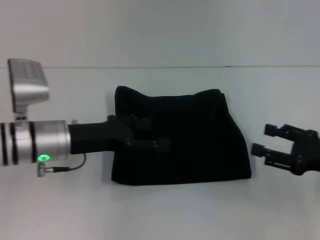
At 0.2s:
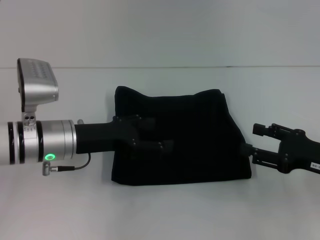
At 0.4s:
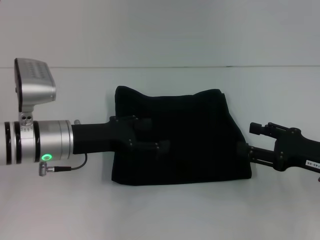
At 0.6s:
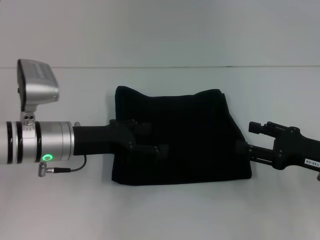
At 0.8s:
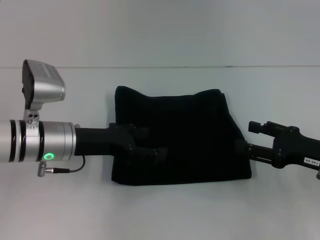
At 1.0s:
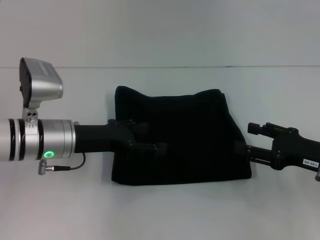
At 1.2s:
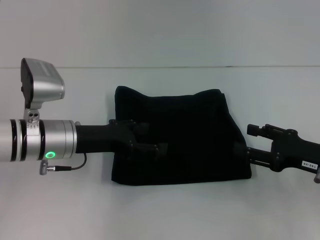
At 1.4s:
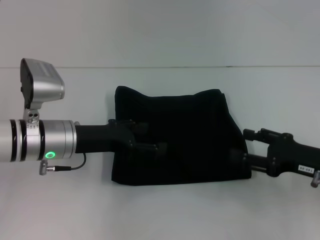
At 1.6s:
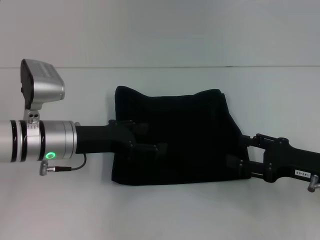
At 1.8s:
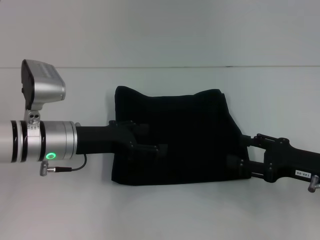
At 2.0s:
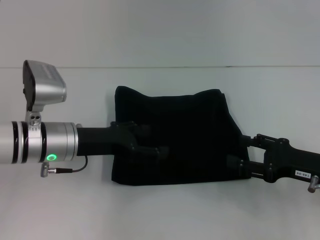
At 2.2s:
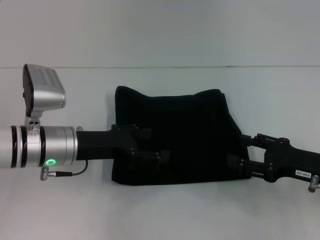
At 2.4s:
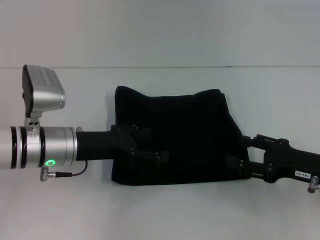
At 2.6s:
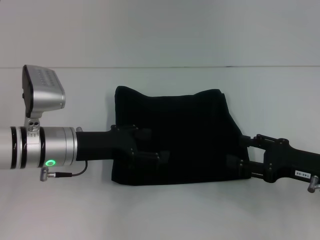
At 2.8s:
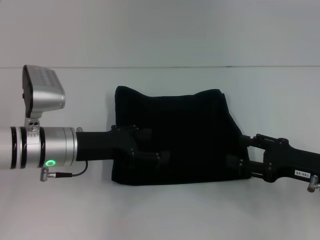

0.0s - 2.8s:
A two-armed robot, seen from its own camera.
0.0s - 1.4s: The grippers make only small movements.
1.4s - 2.8s: Both grippers stay put.

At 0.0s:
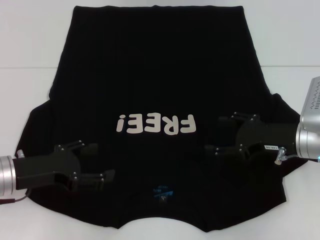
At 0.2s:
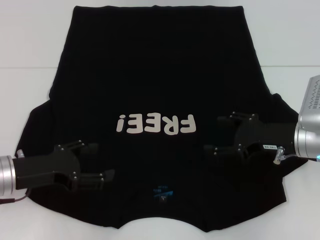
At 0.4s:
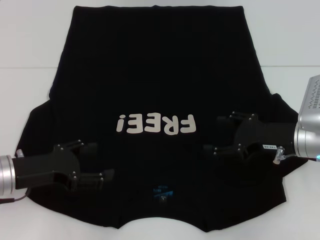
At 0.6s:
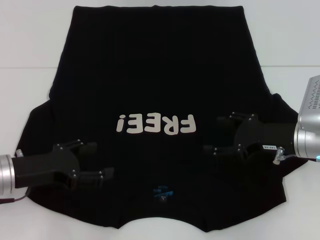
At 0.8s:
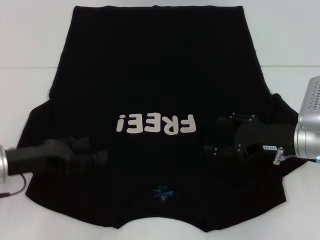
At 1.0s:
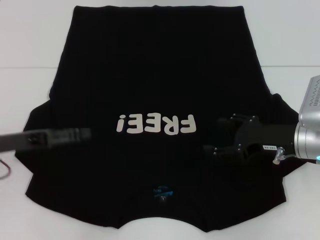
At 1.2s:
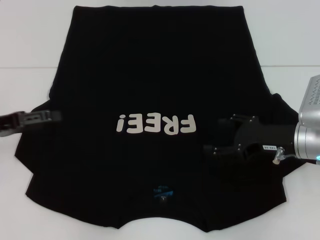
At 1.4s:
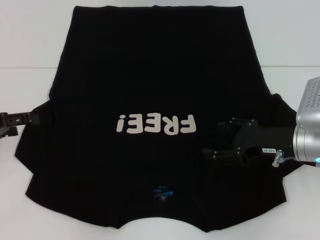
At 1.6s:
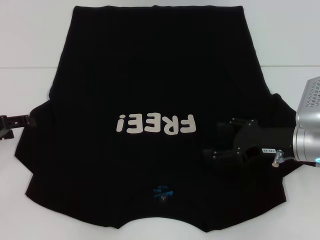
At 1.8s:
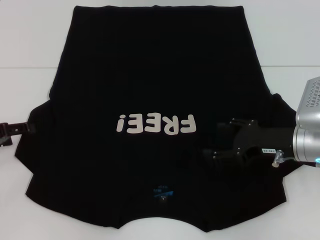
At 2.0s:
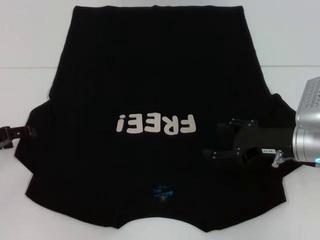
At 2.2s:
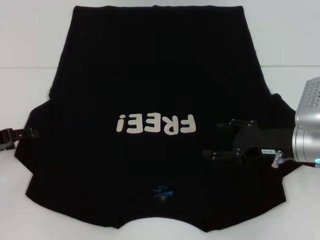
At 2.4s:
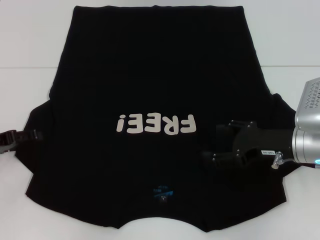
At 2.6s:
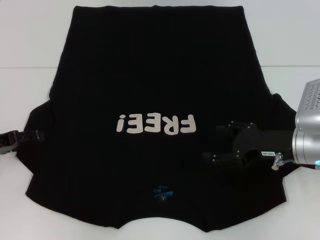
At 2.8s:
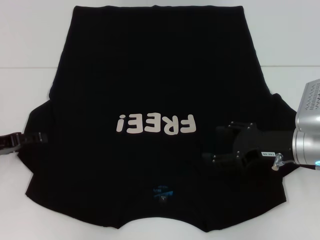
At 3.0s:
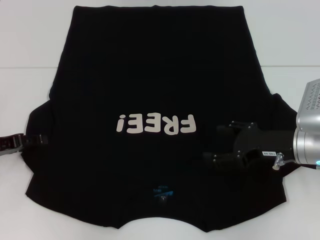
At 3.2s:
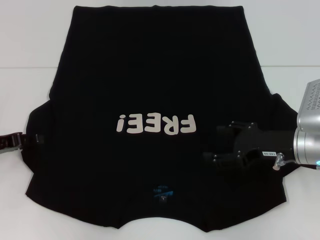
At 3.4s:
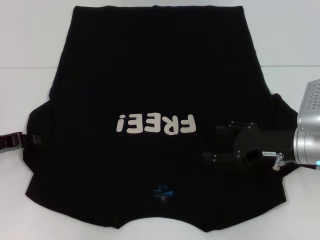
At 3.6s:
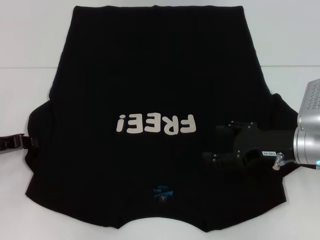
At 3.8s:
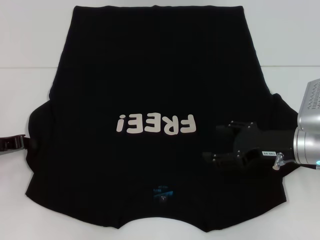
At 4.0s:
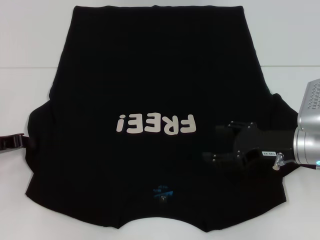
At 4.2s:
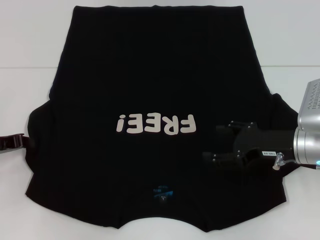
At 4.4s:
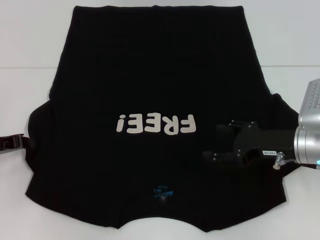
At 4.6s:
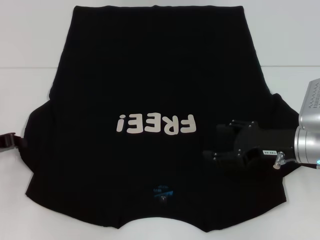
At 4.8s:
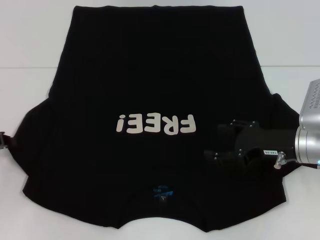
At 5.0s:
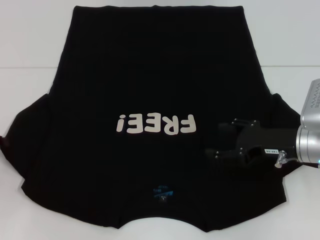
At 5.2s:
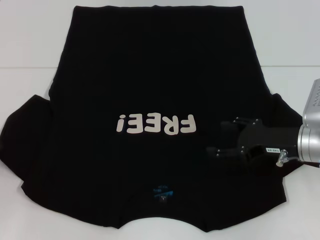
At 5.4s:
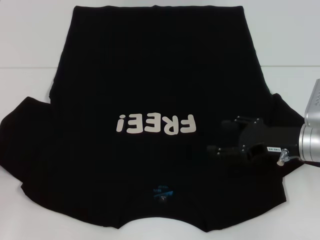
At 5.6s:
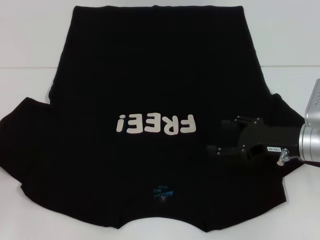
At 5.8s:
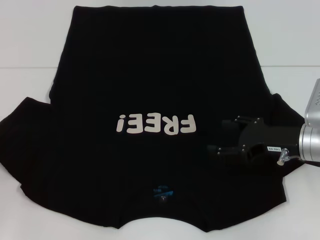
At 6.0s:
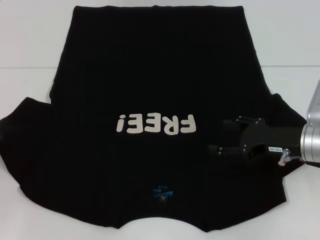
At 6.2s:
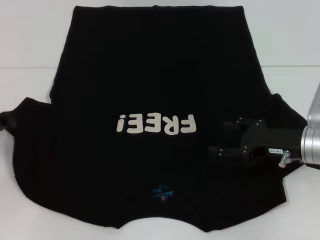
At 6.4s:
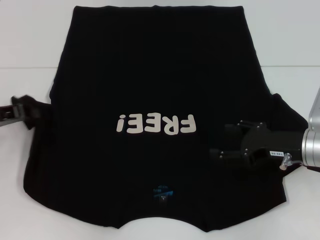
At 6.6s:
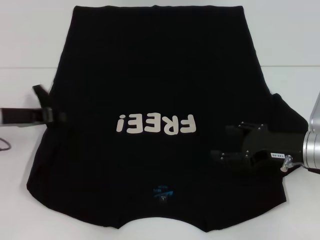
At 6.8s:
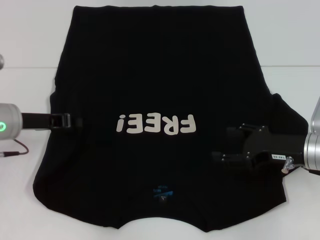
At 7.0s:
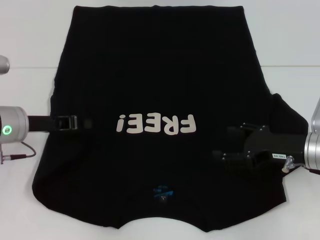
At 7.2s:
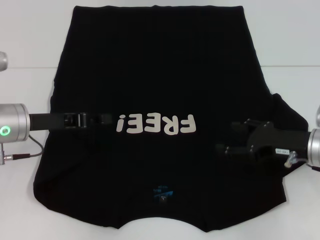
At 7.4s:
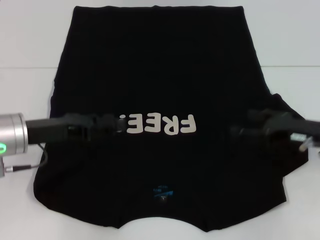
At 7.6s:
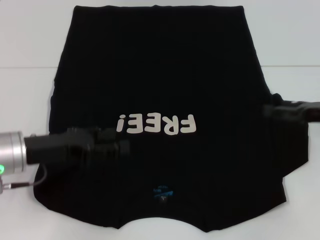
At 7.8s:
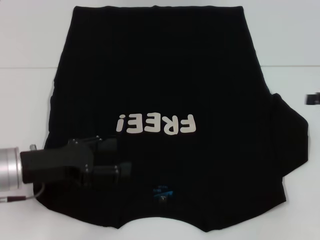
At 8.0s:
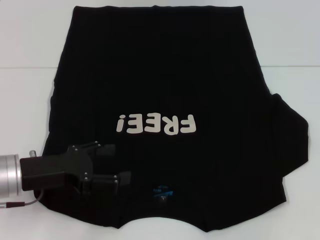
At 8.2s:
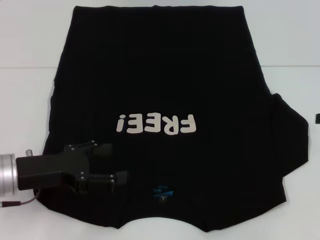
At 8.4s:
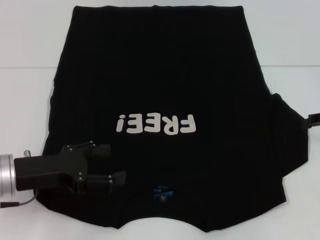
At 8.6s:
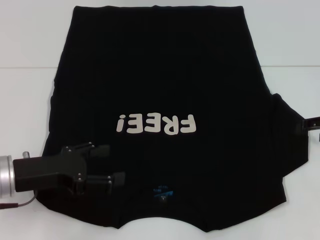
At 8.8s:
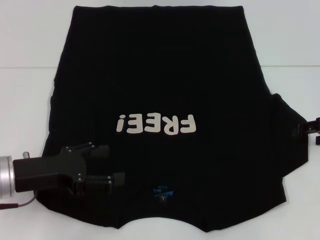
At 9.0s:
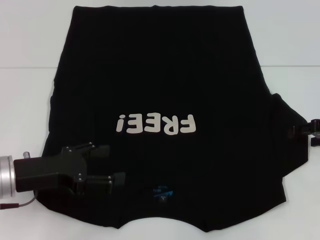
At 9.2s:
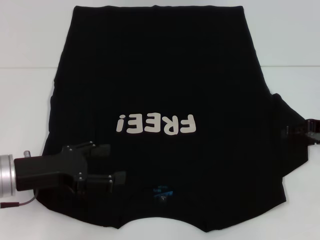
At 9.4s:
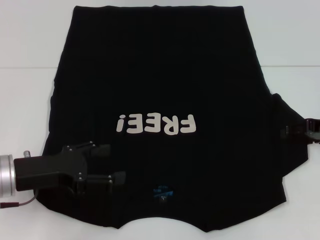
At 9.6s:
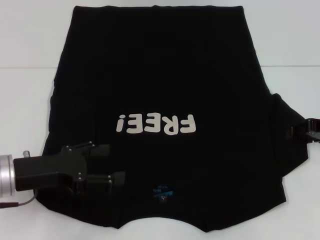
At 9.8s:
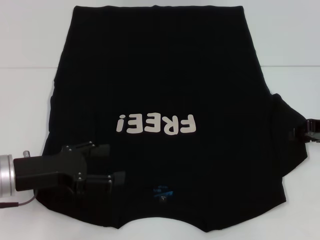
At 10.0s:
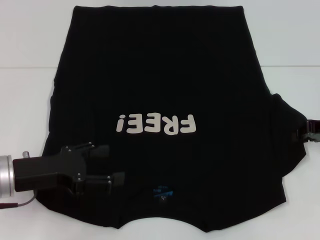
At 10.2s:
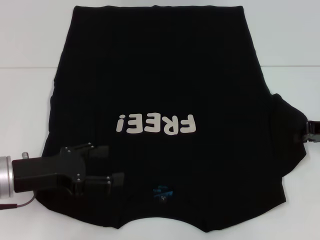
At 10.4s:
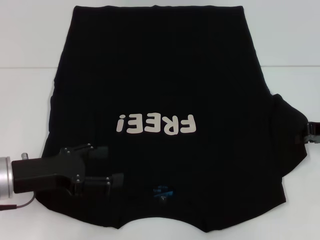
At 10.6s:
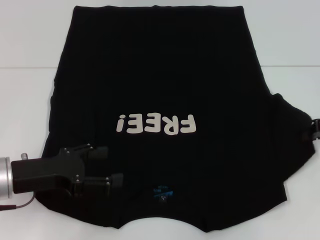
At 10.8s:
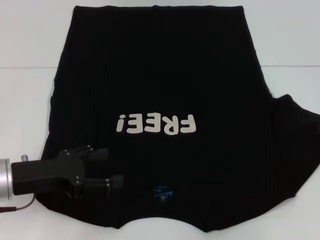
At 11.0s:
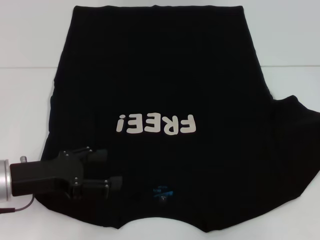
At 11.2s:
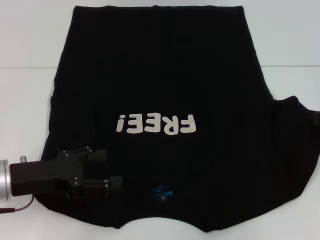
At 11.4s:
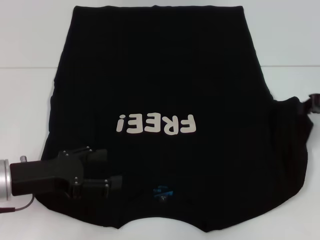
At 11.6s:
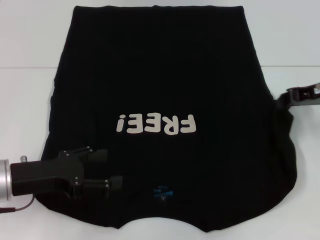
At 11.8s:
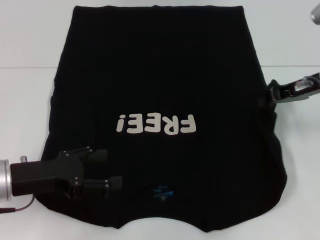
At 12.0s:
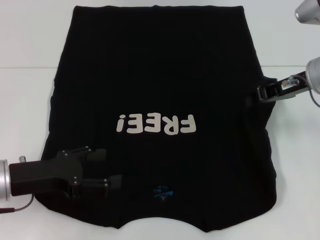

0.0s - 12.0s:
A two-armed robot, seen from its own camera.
Step, 0.0s - 7.2s: Fold the bottom left sleeve with your left hand.
0.0s - 1.6s: The left gripper moves to the left, about 10 cm.
1.6s - 3.0s: There are only small adjustments of the grippers.
4.4s - 6.0s: The left gripper changes place by about 5 cm.
6.0s - 7.6s: The right gripper moves to the right, approximately 10 cm. The left gripper travels to the right by some 15 cm, and opens.
7.6s - 9.0s: The left gripper opens its fingers.
9.0s - 10.4s: The right gripper closes.
10.4s - 12.0s: The right gripper heads to the left and upward, covering some 10 cm.

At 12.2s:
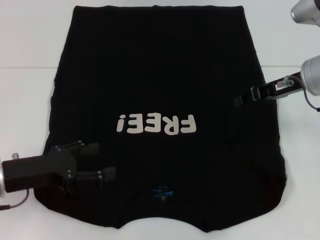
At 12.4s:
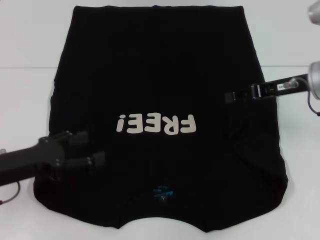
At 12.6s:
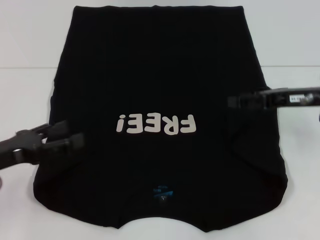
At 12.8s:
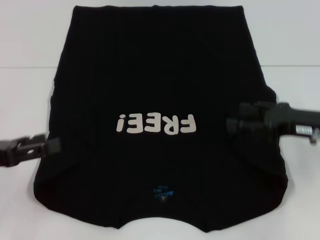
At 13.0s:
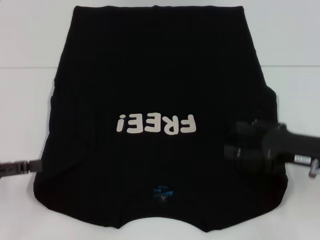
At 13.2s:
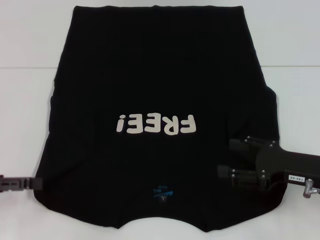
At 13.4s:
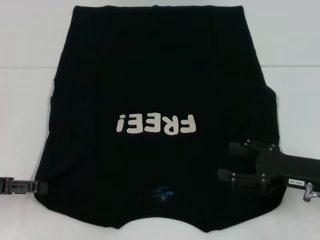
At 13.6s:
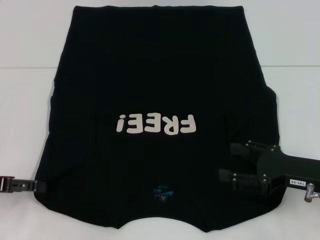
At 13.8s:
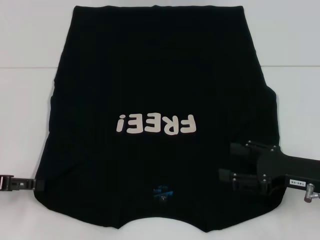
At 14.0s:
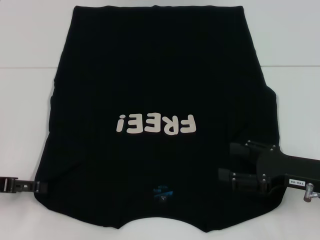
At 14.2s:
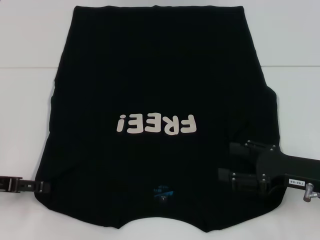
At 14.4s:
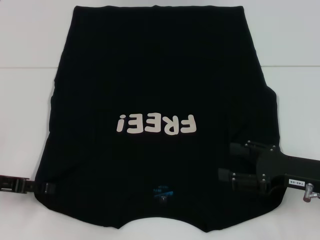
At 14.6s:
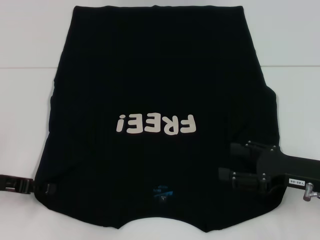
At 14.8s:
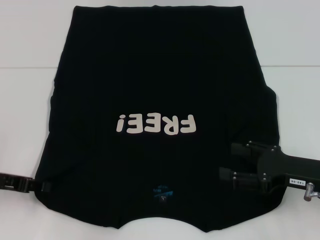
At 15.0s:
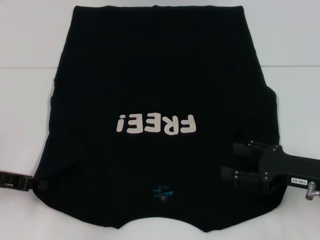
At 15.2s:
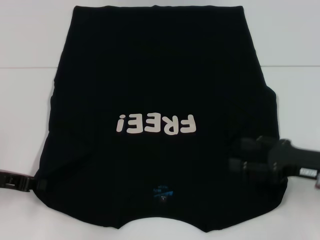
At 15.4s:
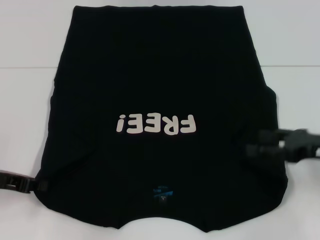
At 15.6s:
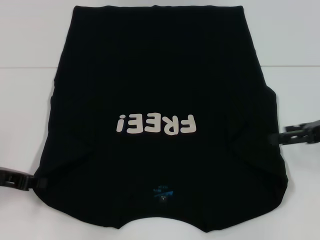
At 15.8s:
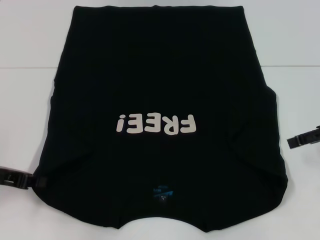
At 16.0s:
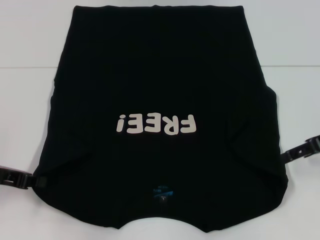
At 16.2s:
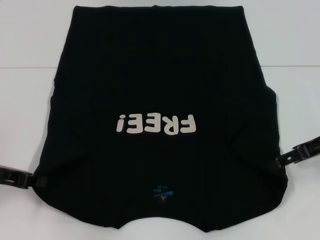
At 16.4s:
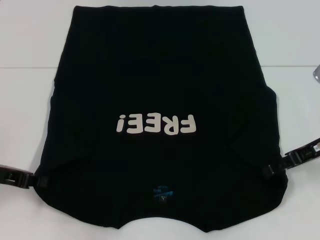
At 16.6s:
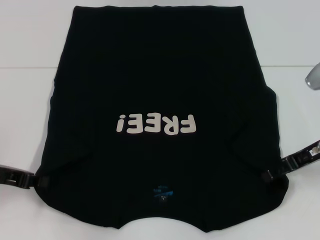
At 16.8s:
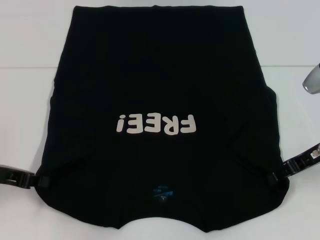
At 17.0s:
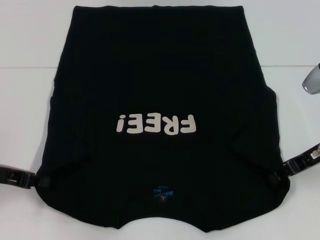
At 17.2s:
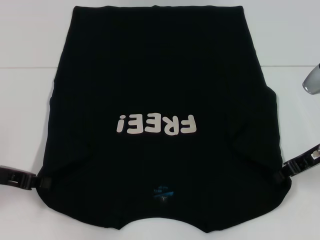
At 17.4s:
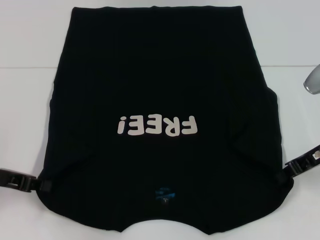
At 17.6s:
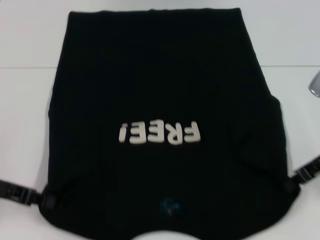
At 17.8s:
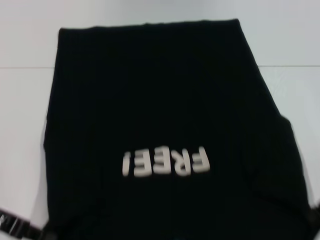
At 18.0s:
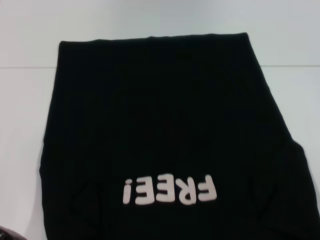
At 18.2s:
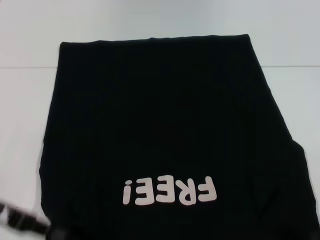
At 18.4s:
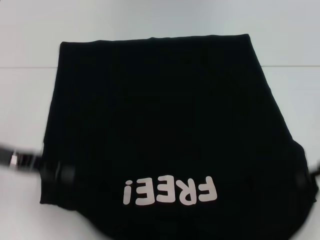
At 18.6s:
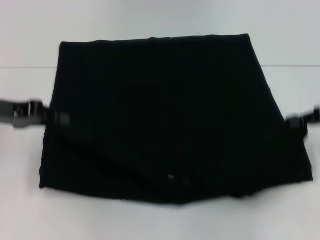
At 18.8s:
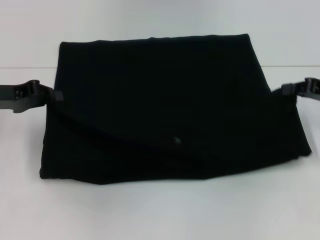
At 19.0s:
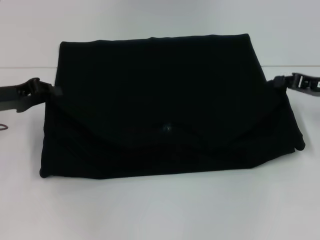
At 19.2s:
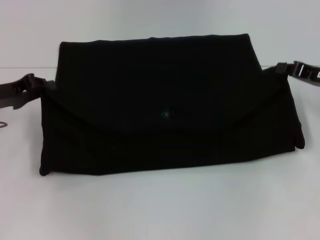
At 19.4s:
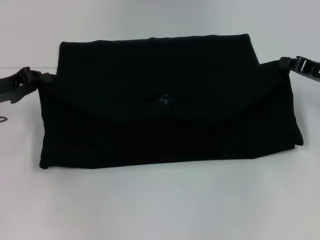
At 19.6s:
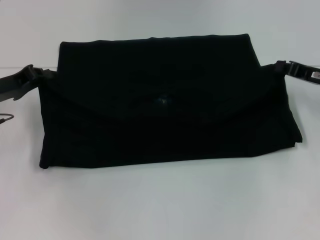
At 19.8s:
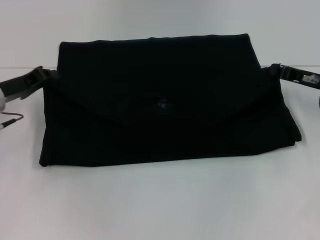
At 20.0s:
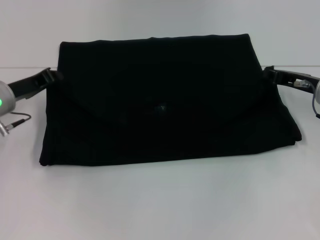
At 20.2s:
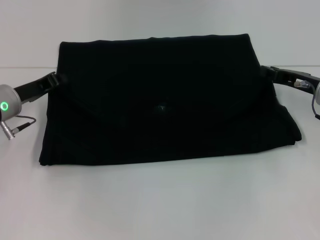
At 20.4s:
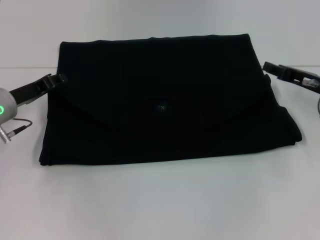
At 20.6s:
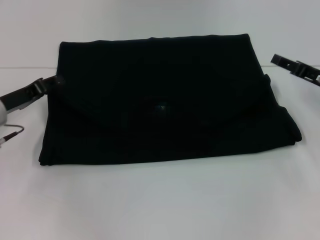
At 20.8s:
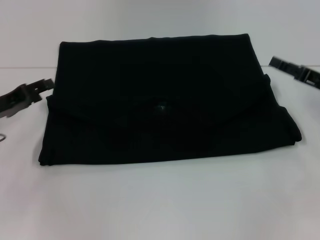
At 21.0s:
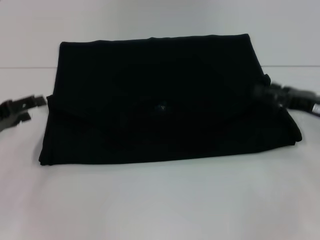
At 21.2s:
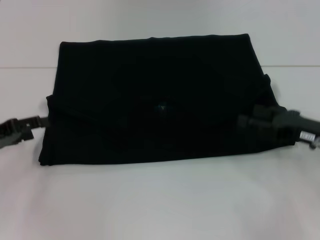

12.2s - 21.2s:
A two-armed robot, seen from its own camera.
Step, 12.6s - 16.0s: Grab the bottom left corner with your left hand.
Step, 16.2s - 17.4s: Grab the bottom right corner with your right hand.
Step, 17.6s - 20.4s: Fold the clothes with your left hand.
Step, 17.6s - 20.4s: Fold the clothes with your right hand.
12.2s - 13.8s: The left gripper heads to the left, covering roughly 10 cm. Meanwhile the right gripper moves backward and downward, some 15 cm, and opens up.
13.8s - 15.2s: The left gripper closes up.
15.2s - 16.6s: The right gripper moves forward and upward, roughly 10 cm.
16.6s - 18.2s: The right gripper travels backward by about 5 cm, and closes up.
18.2s - 19.8s: The grippers both shift forward by about 10 cm.
19.8s - 21.2s: The left gripper shifts roughly 10 cm backward and to the left, and opens up. The right gripper travels backward by about 10 cm, and opens up.
